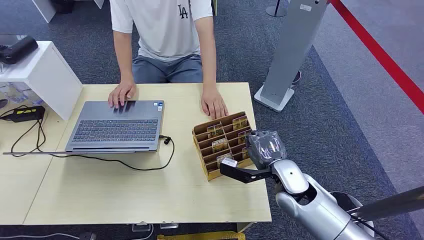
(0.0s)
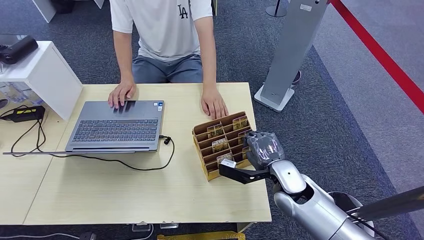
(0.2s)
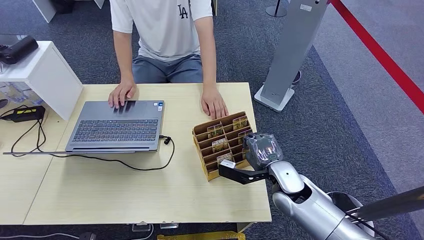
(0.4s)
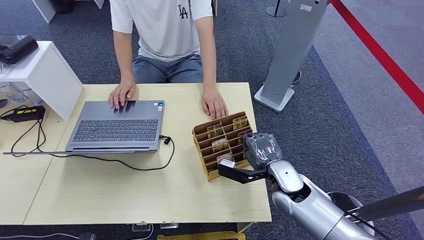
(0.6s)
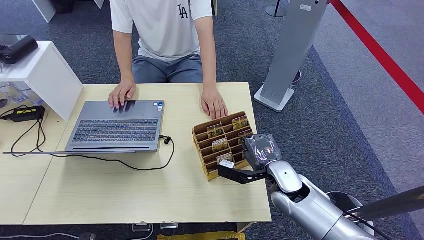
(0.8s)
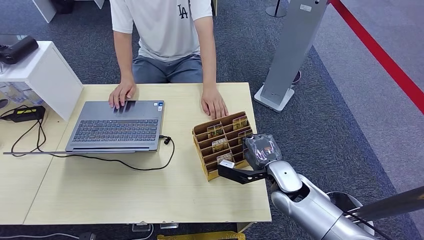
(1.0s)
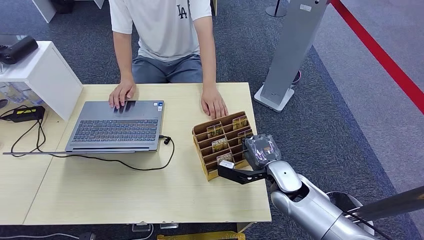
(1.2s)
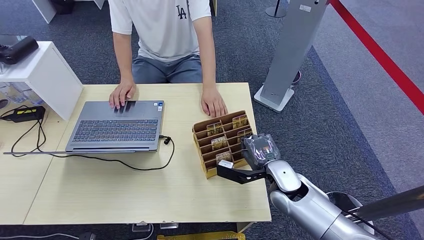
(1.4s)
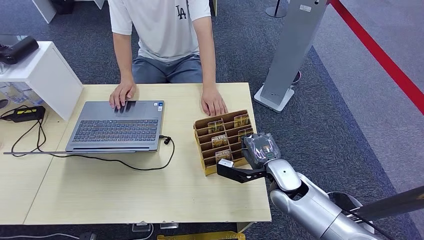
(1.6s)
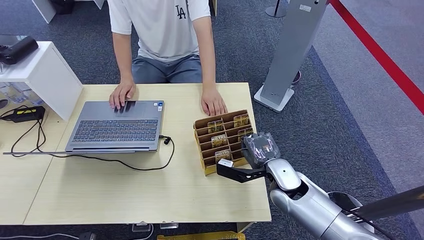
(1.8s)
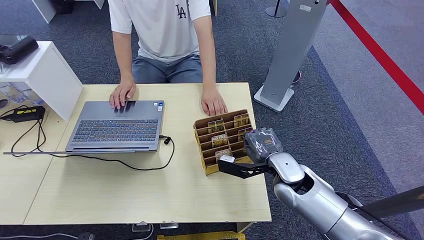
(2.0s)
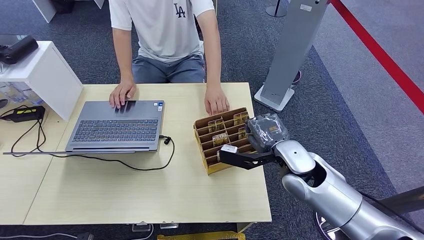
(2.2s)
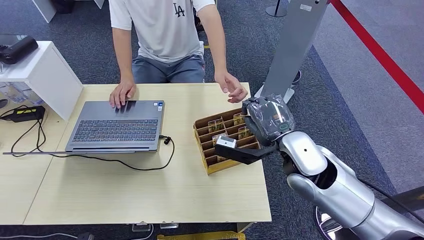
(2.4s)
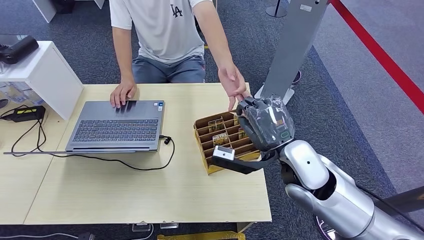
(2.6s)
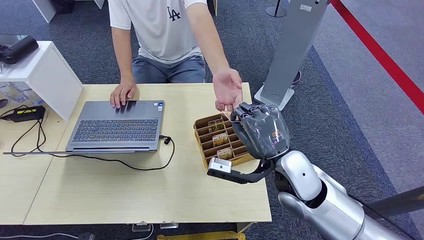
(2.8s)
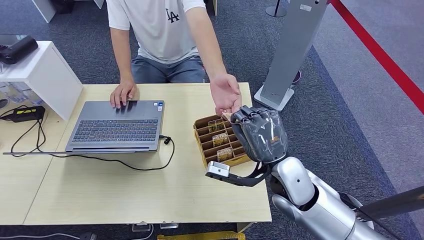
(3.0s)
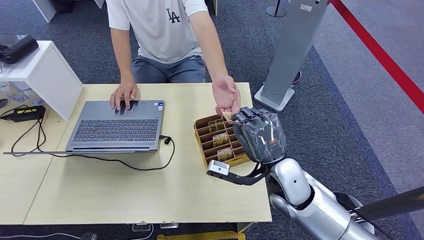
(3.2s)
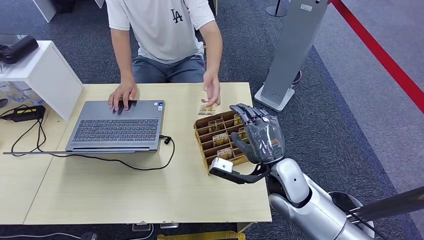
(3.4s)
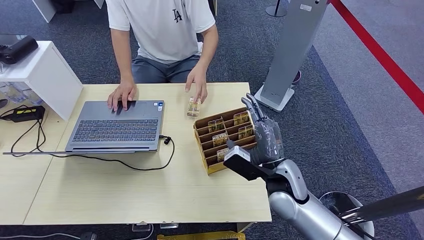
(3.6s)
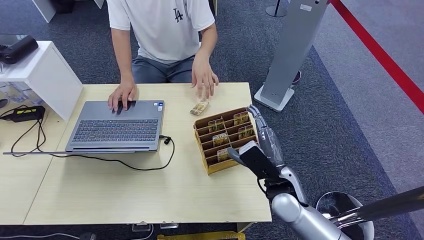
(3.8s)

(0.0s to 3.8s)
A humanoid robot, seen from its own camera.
Step, 0.0s - 2.0s: Pick up the key card from the card box.
Step, 2.4s - 3.8s: Hand the key card to the target.
1.2s - 2.6s: The right hand is displaced upward by about 15 cm.
2.6s - 3.8s: The right hand shifts roughly 10 cm downward.

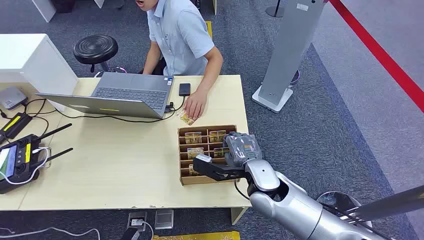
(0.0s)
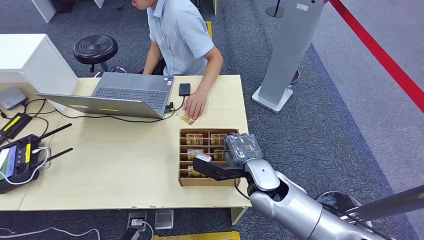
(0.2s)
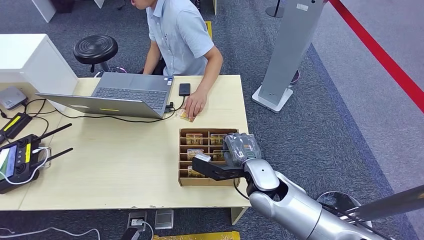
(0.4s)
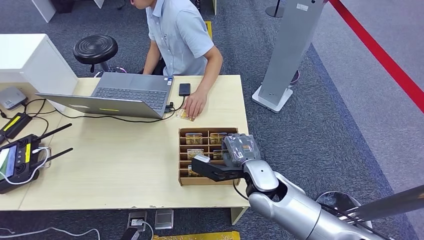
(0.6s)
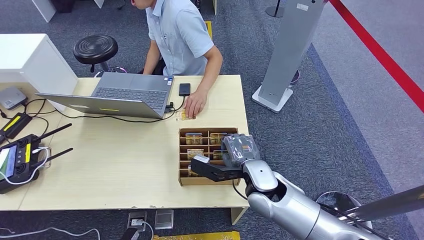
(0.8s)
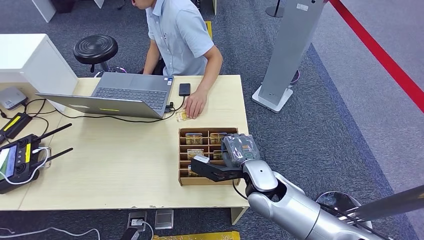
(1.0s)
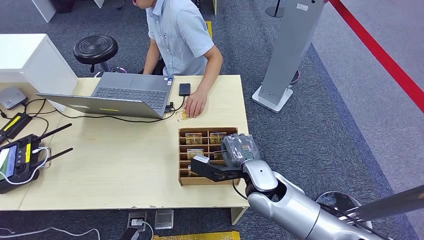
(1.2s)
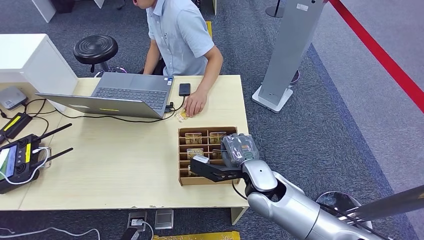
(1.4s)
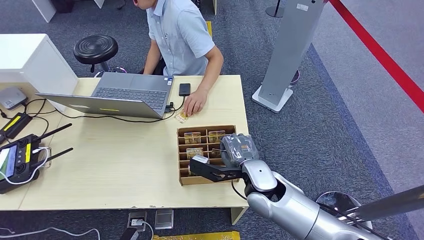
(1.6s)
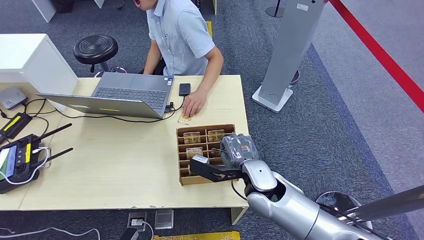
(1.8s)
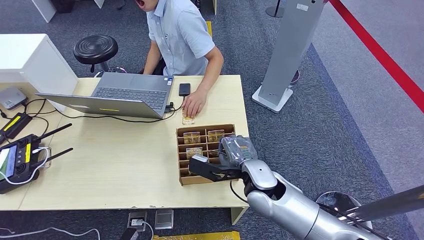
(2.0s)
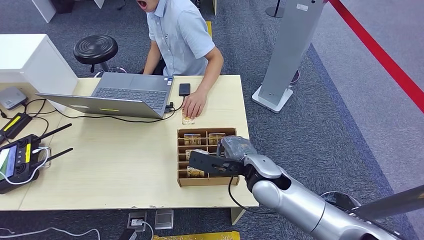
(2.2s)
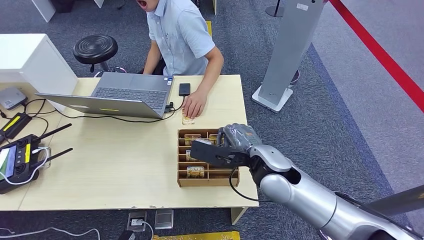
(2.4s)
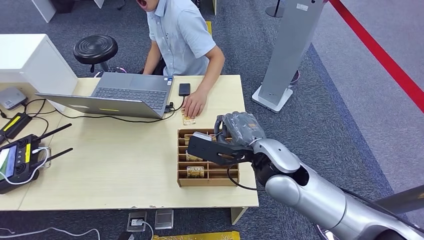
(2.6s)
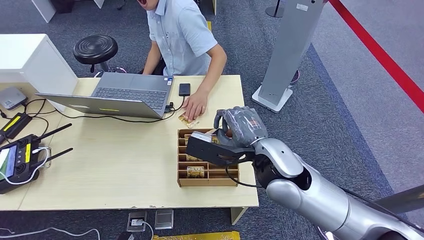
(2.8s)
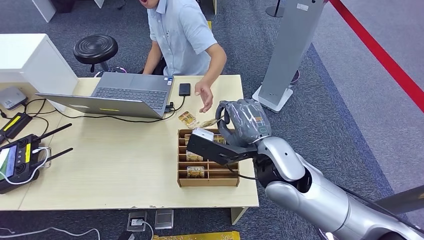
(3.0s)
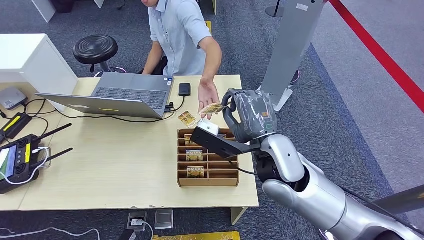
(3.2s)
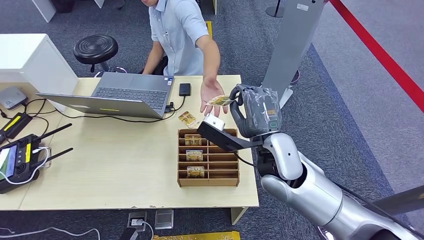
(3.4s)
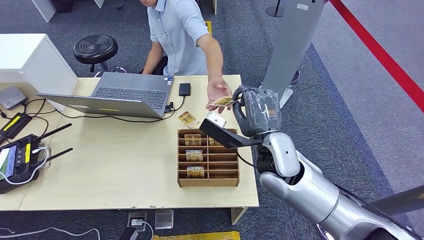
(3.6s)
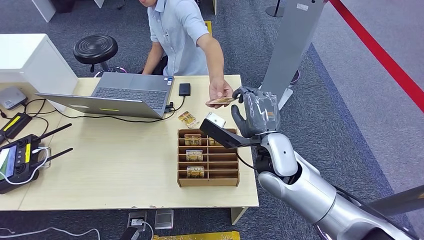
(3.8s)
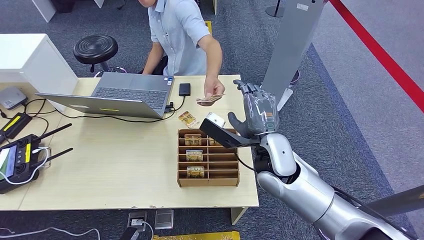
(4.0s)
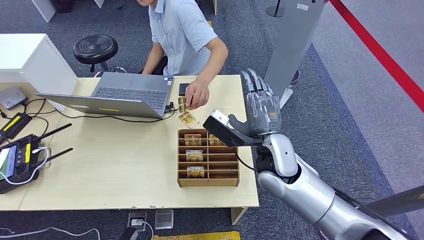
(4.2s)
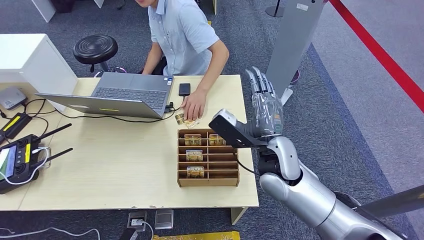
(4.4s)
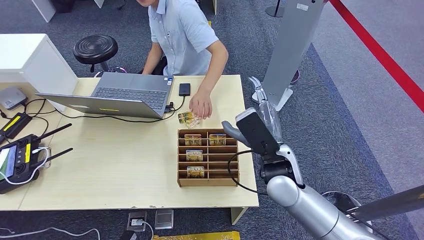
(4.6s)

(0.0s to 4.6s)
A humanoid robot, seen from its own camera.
Step, 0.0s - 2.6s: Pick up the key card from the card box.
Step, 3.0s - 4.6s: Hand the key card to the target.
1.6s - 3.0s: The right hand travels upward by some 10 cm.
3.0s - 4.6s: The right hand moves downward, roughly 5 cm.

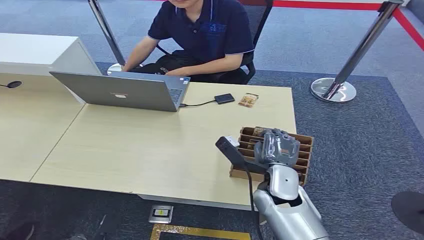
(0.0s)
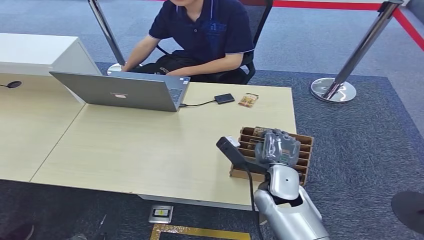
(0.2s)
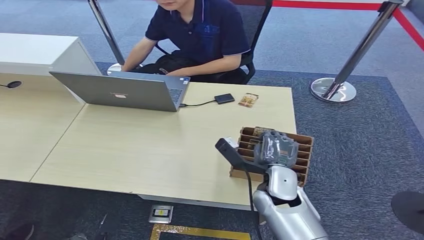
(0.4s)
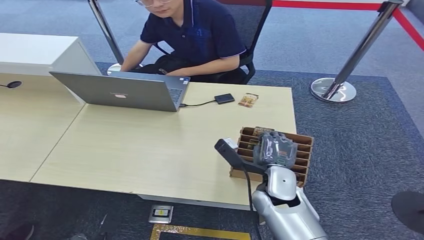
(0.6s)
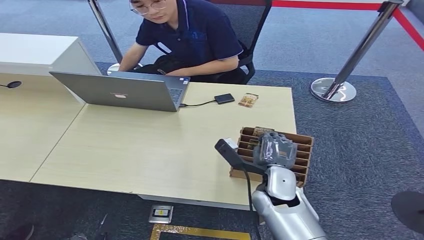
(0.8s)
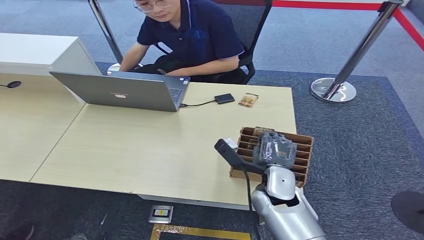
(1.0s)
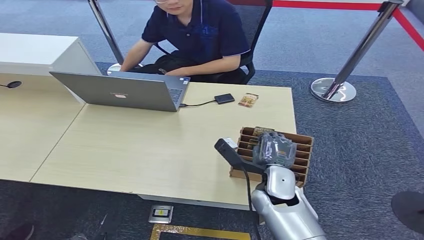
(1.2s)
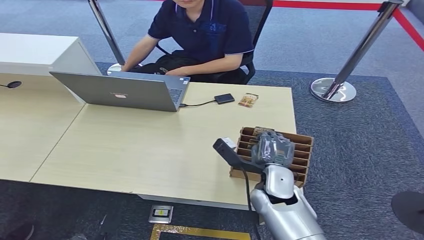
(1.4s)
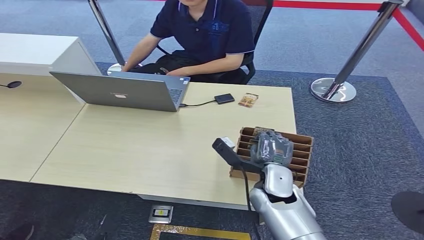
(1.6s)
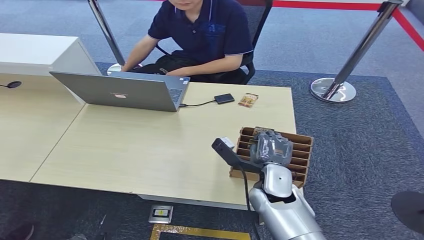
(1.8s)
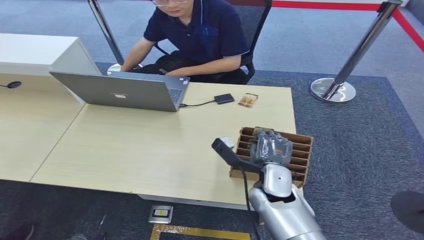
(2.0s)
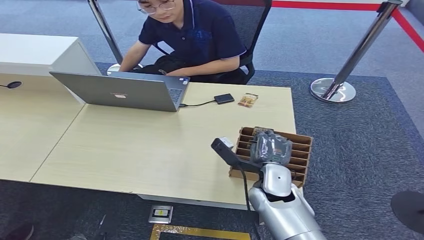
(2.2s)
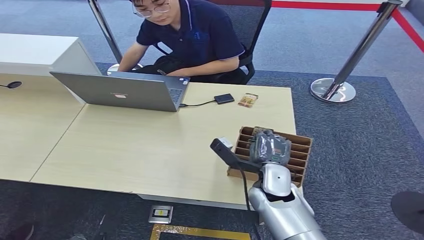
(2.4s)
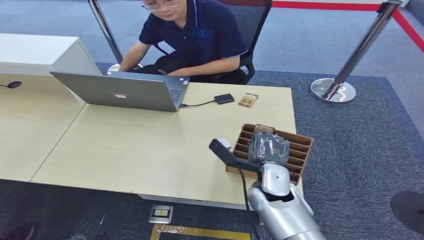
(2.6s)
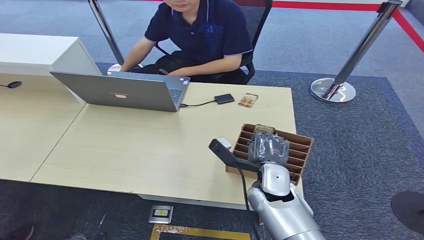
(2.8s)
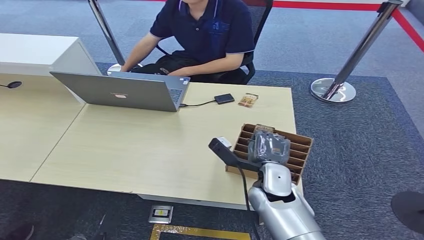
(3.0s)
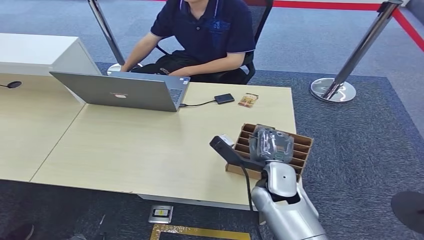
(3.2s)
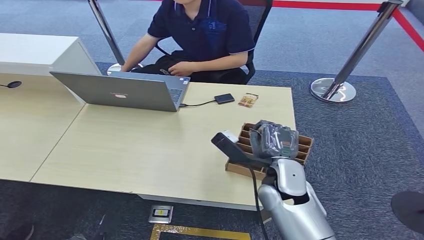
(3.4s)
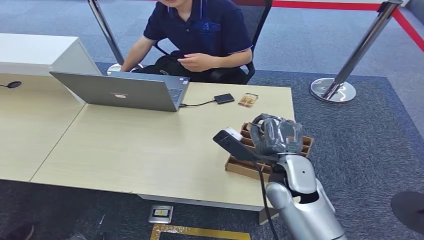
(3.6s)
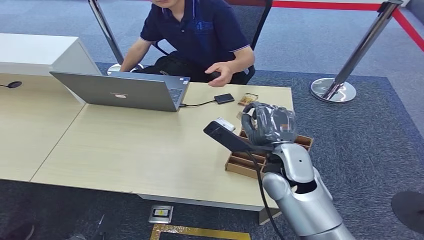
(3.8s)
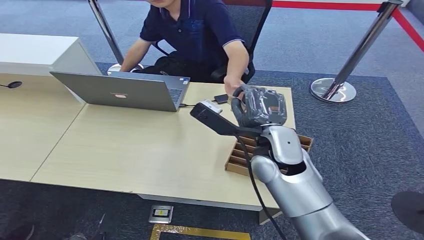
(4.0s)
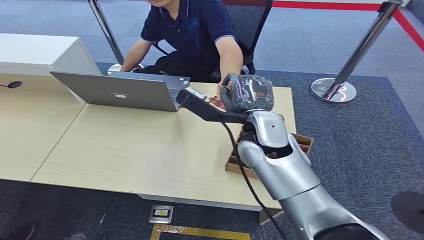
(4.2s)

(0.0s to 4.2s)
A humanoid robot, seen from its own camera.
Step, 0.0s - 3.6s: Pick up the key card from the card box.
Step, 3.8s - 4.2s: Hand the key card to the target.
1.4s - 2.8s: Neither hand changes place.
2.8s - 4.2s: The right hand shifts roughly 20 cm upward and forward.
